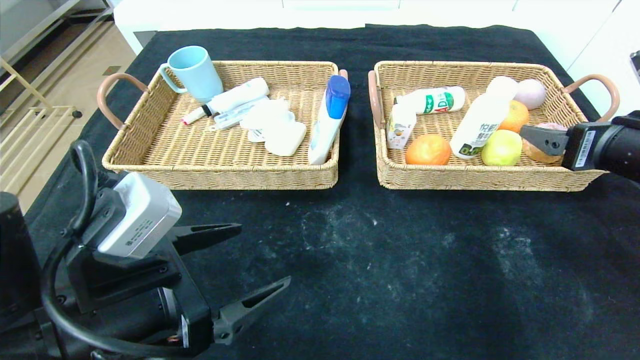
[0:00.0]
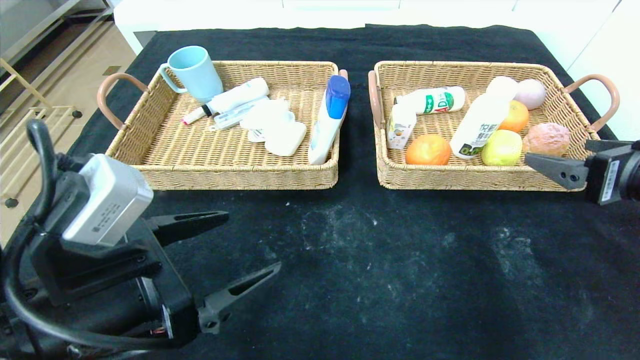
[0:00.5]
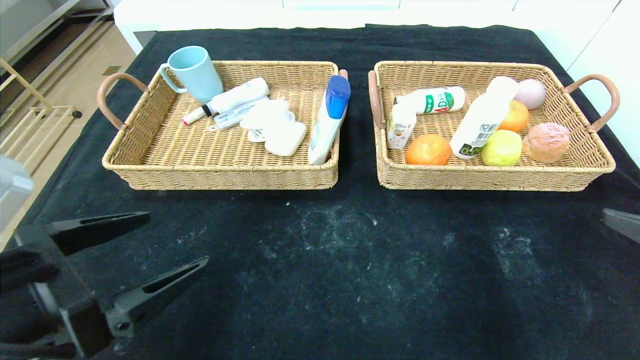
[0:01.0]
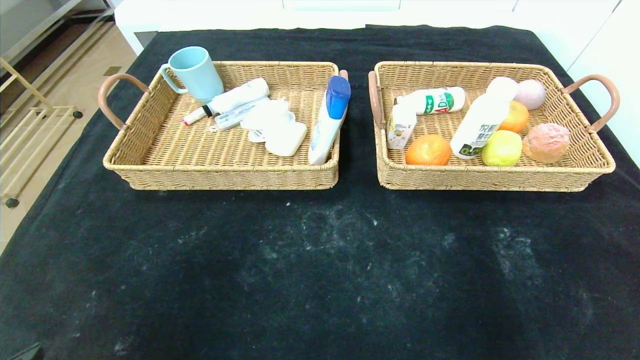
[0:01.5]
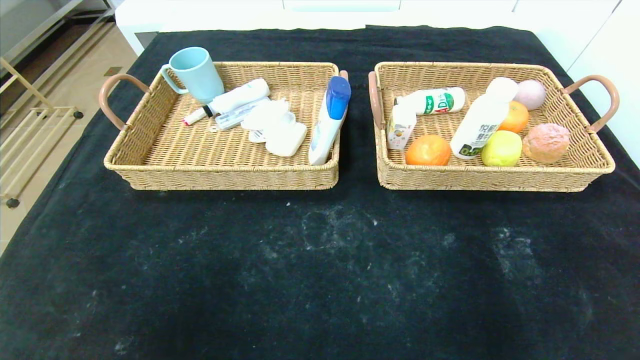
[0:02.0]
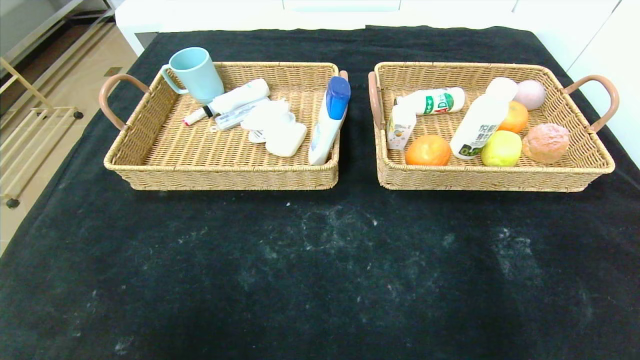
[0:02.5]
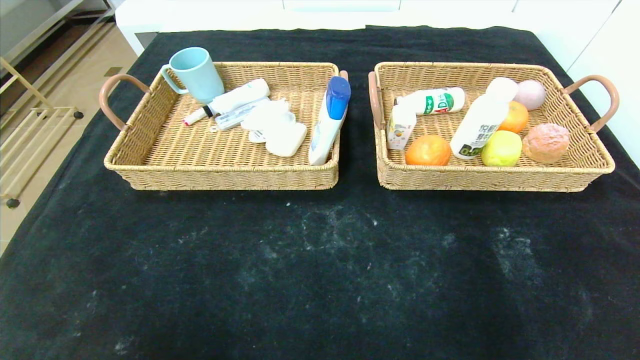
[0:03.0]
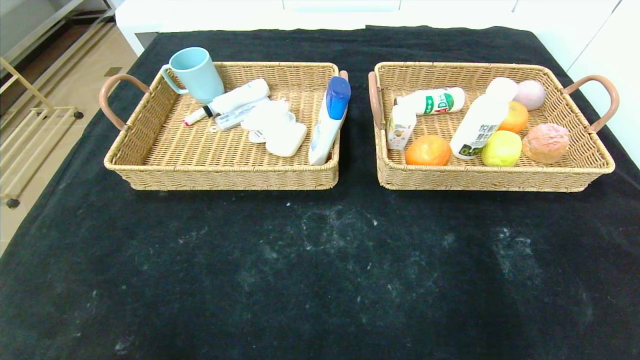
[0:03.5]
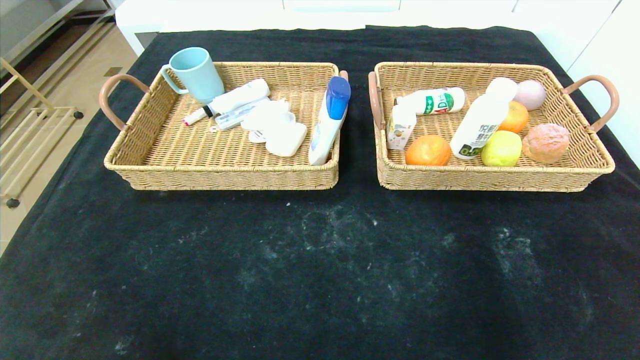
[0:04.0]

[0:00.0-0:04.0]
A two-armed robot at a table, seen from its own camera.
0:00.0 to 0:02.0: The left gripper is displaced backward and to the left by approximately 25 cm; the right gripper shifts about 35 cm backward.
